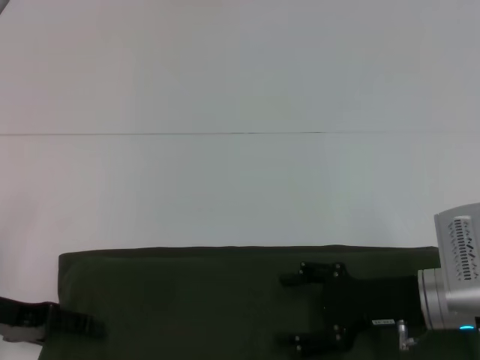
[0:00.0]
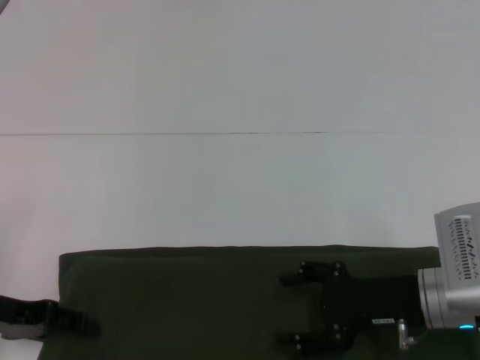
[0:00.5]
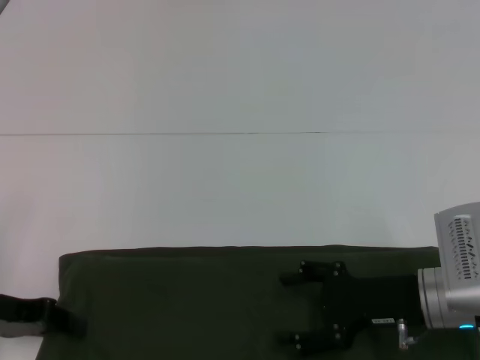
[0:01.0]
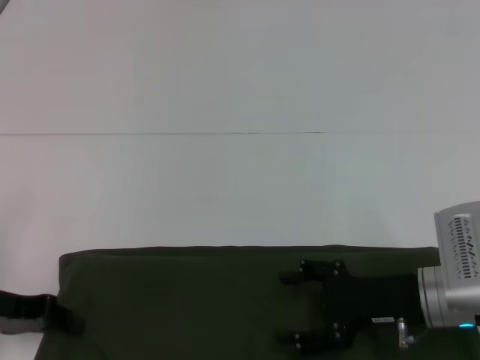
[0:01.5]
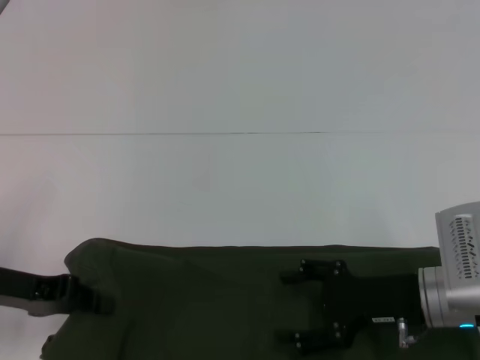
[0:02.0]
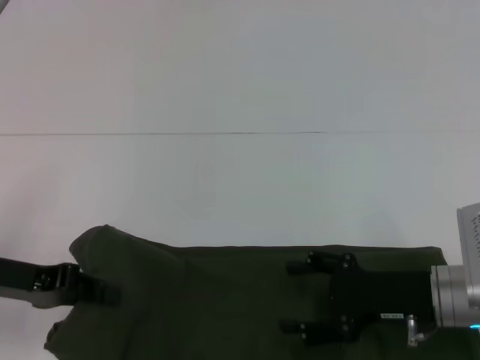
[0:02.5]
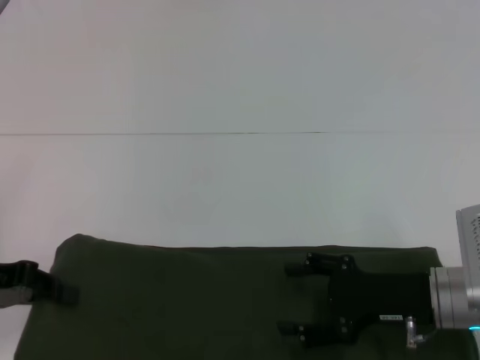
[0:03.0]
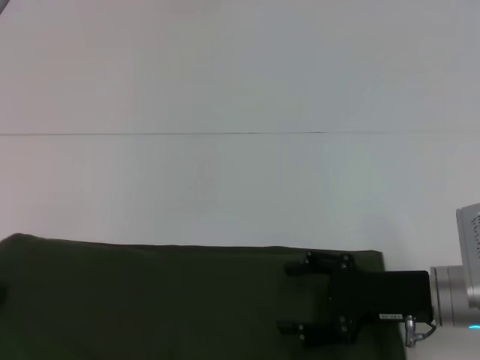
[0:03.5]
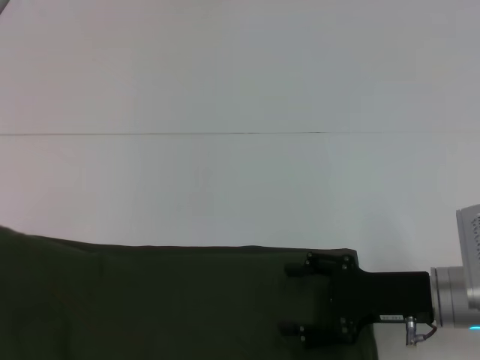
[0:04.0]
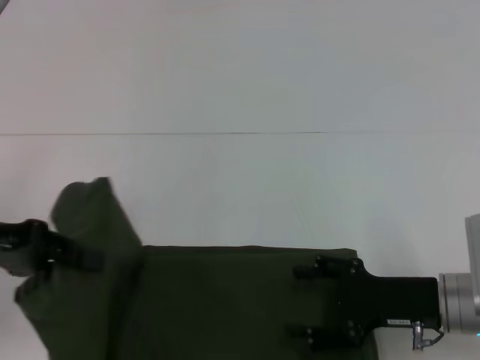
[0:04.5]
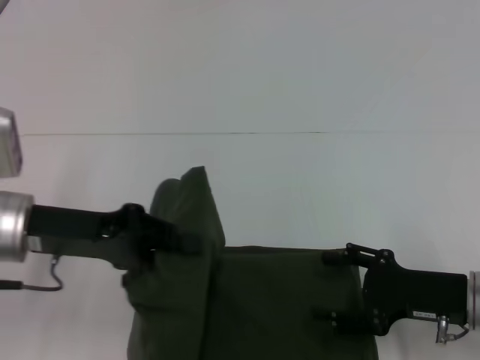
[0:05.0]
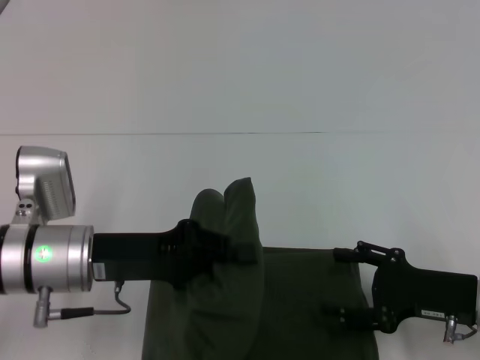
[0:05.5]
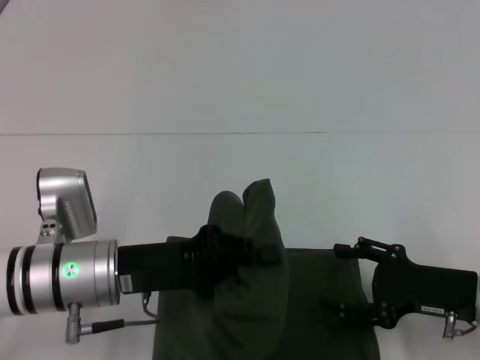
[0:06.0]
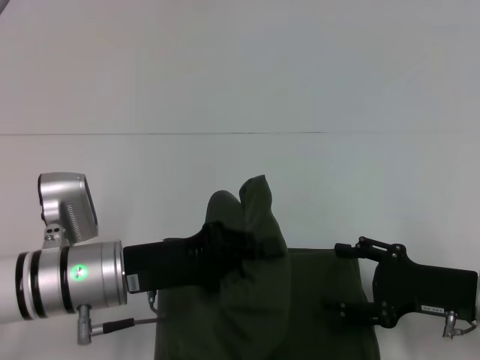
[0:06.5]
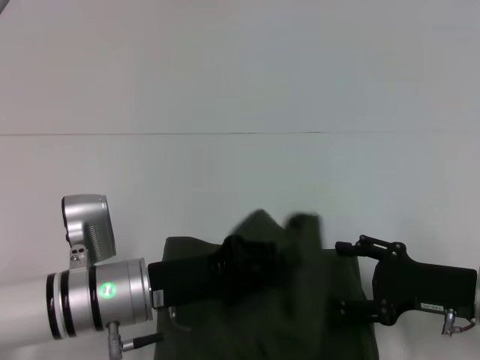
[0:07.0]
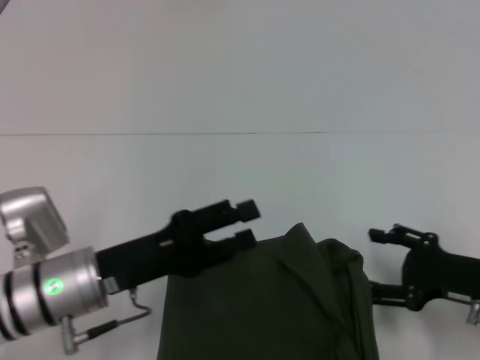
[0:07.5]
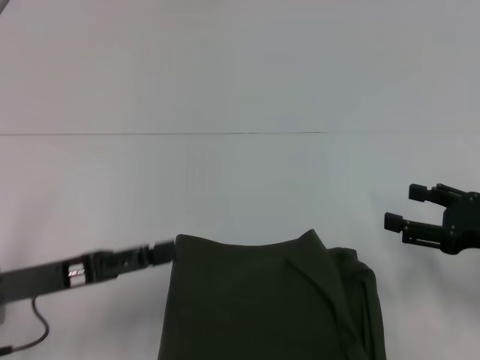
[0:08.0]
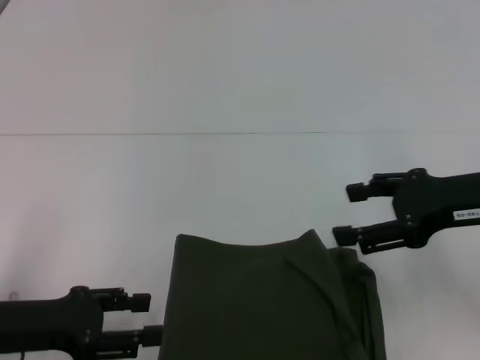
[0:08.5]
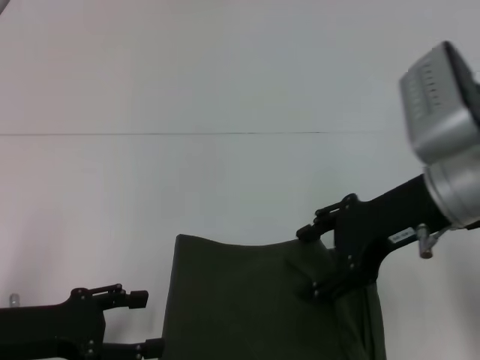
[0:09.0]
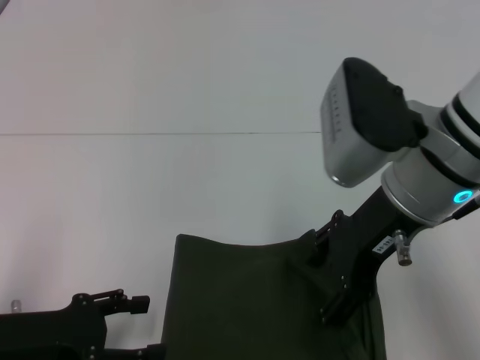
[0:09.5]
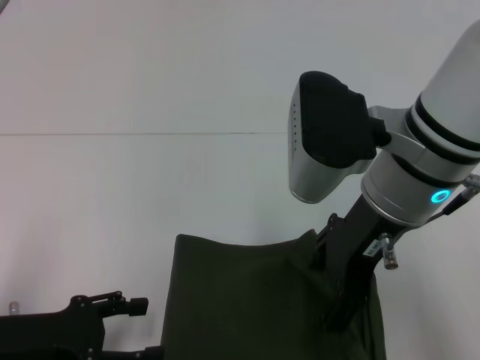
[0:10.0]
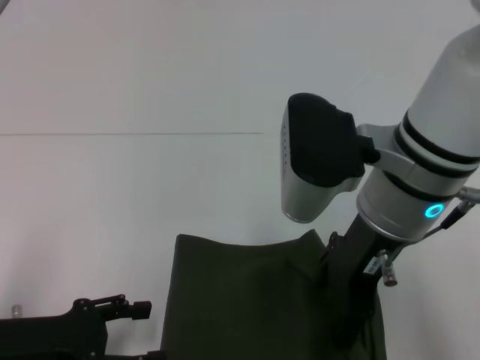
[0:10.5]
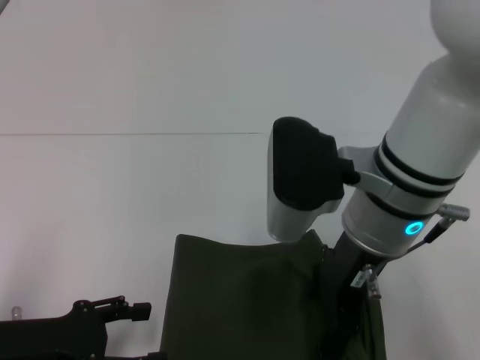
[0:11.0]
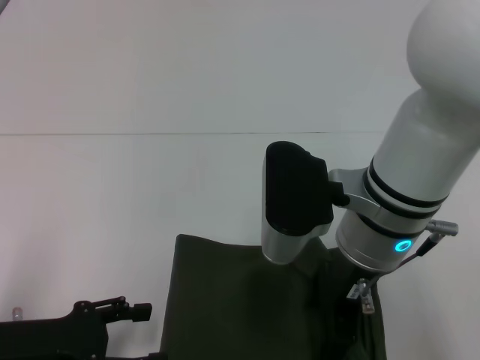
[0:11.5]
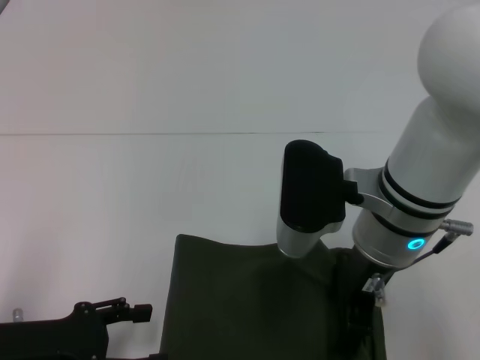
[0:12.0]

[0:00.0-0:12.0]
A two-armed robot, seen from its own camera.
Step, 0:00.0 to 0:07.0: Fold the clothes with your left hand.
0:00.0 to 0:02.0: The left gripper closes up.
0:02.0 to 0:04.0: The left gripper goes roughly 10 cm to the left and upward.
0:04.0 to 0:06.0: The left gripper goes approximately 20 cm to the right.
0:06.0 to 0:08.0: The left gripper shifts approximately 10 cm to the left, and opens its fingers, while the right gripper heads to the right, covering about 5 cm.
0:08.0 to 0:10.0: The right gripper heads to the left and upward, covering about 25 cm.
0:10.0 to 0:12.0: The right gripper moves downward, some 5 cm.

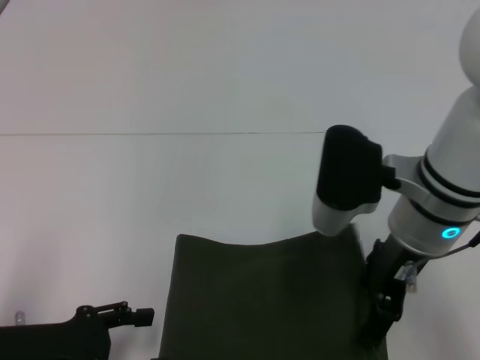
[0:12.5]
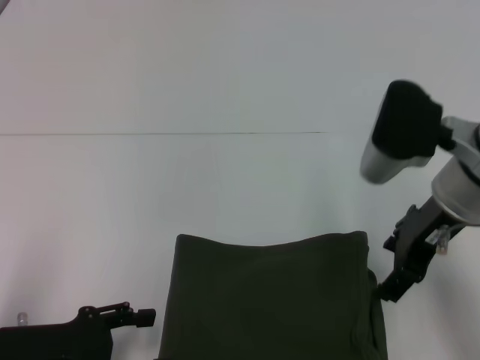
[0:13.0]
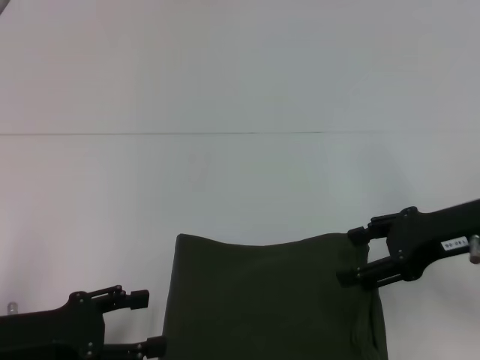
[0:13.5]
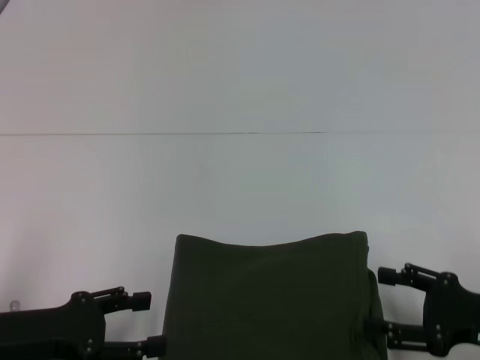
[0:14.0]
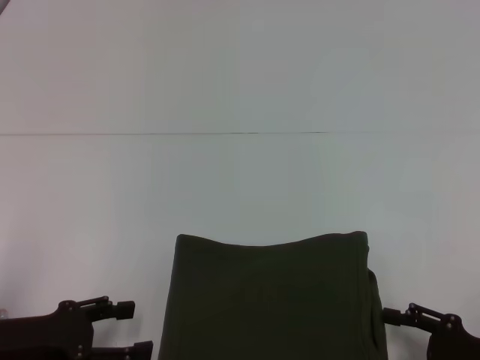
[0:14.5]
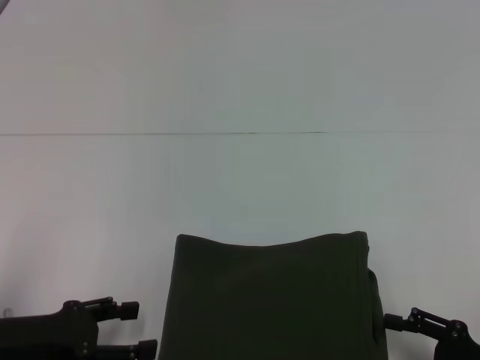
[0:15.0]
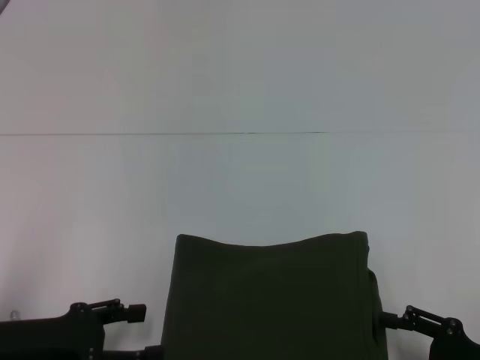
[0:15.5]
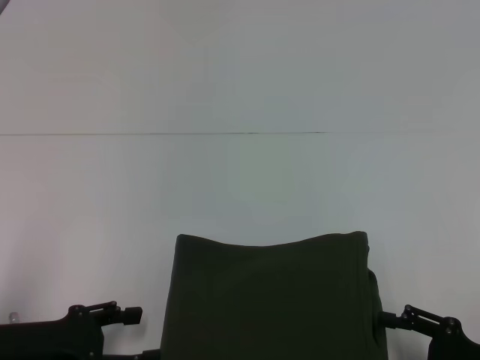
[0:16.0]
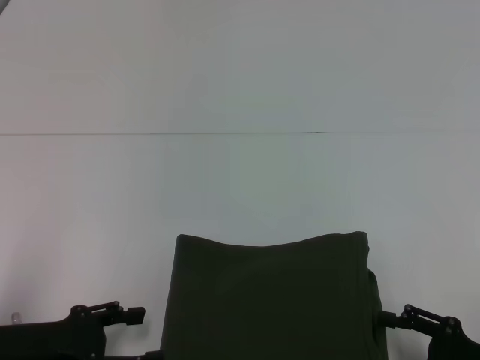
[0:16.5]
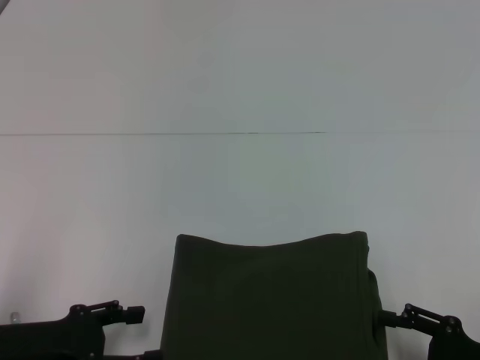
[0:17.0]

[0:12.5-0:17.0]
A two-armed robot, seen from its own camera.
0:12.5 to 0:14.5: The right gripper moves to the right, downward and backward, approximately 25 cm.
0:14.5 to 0:17.0: The grippers move only a little.
